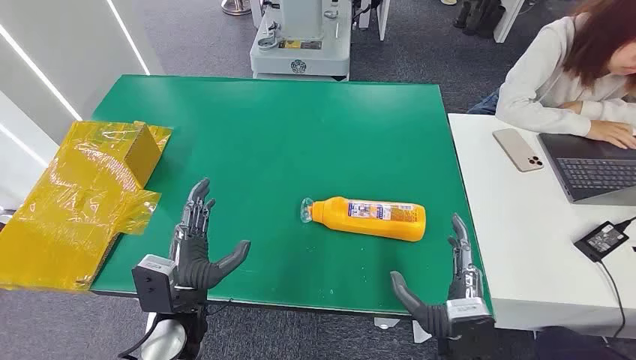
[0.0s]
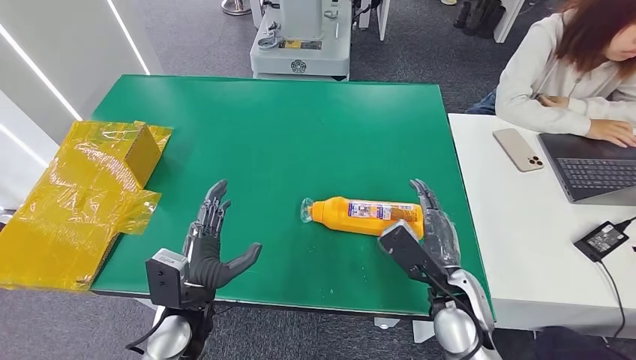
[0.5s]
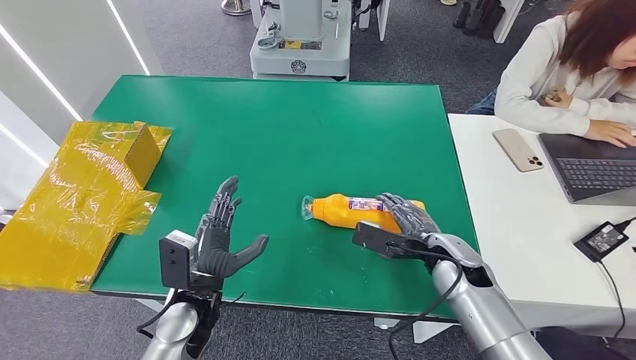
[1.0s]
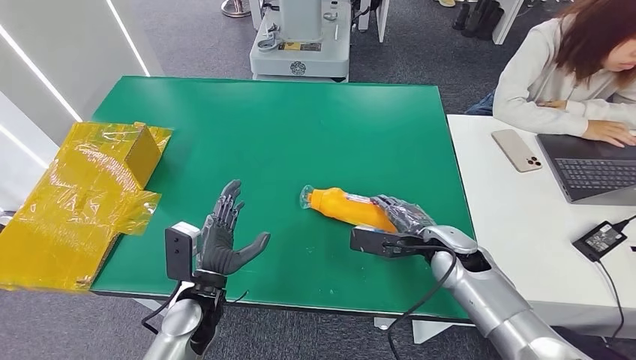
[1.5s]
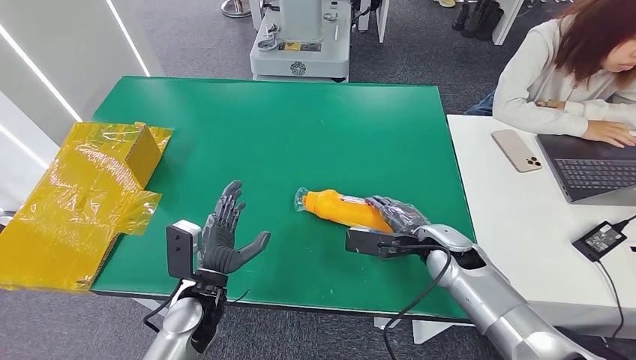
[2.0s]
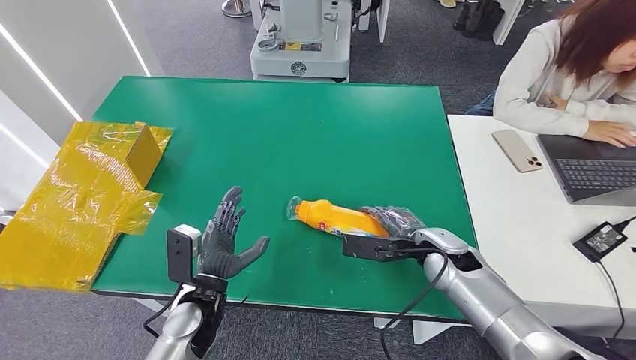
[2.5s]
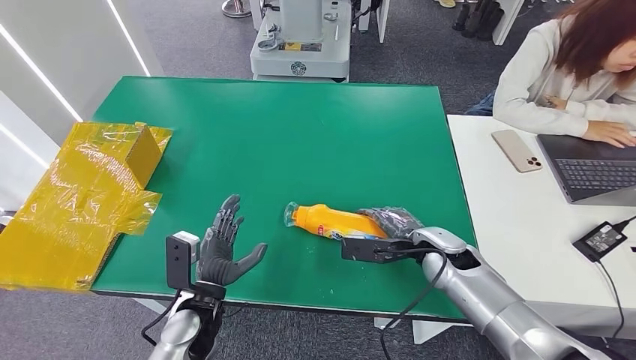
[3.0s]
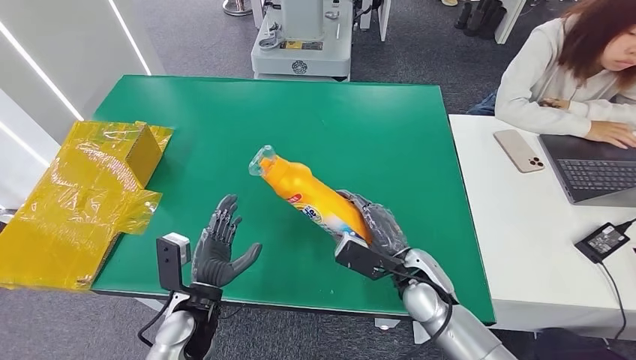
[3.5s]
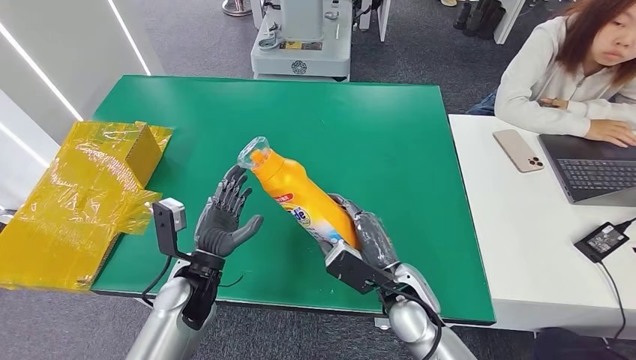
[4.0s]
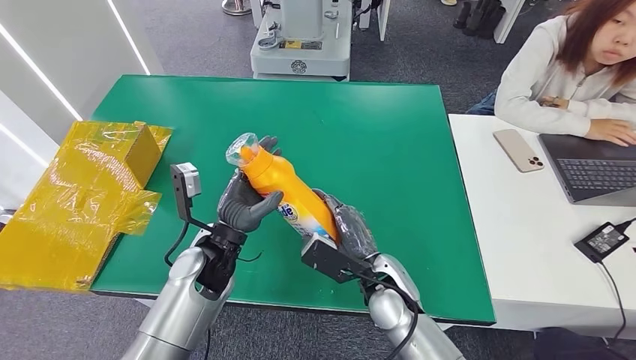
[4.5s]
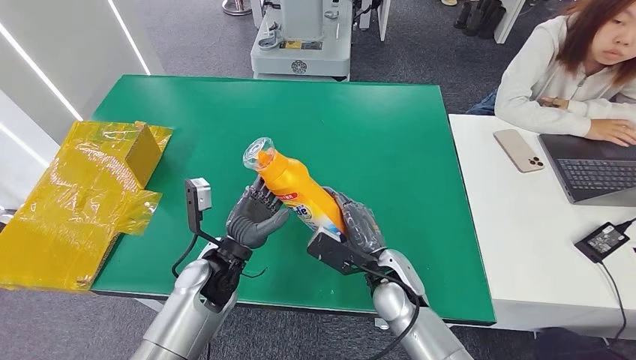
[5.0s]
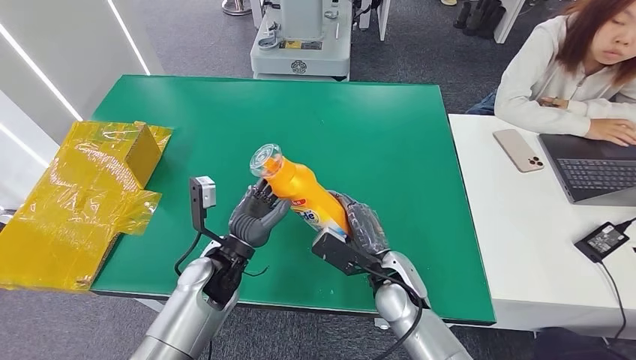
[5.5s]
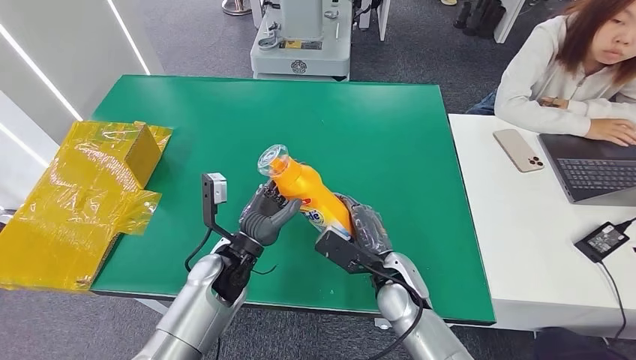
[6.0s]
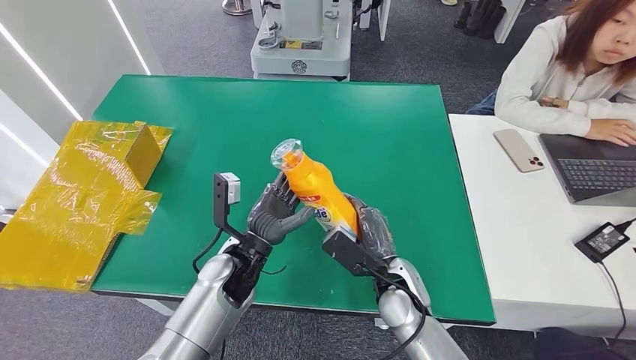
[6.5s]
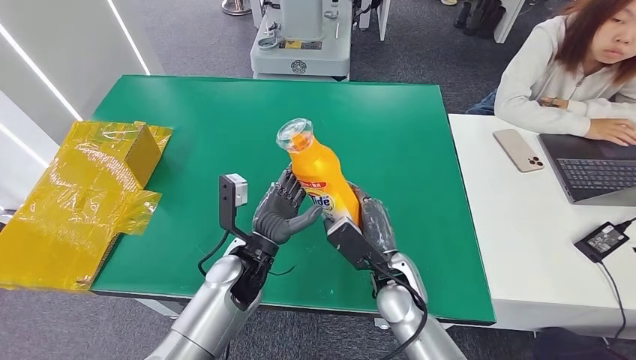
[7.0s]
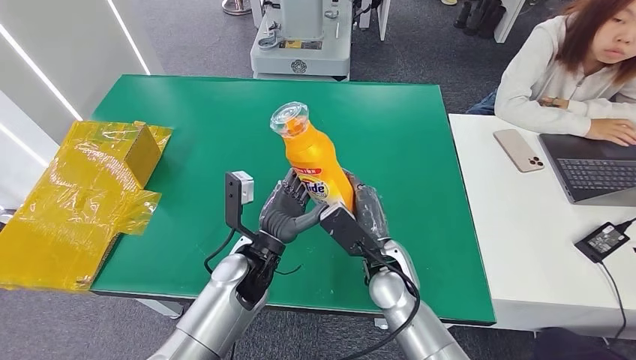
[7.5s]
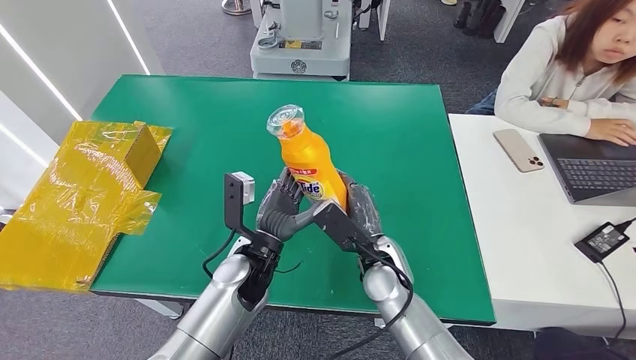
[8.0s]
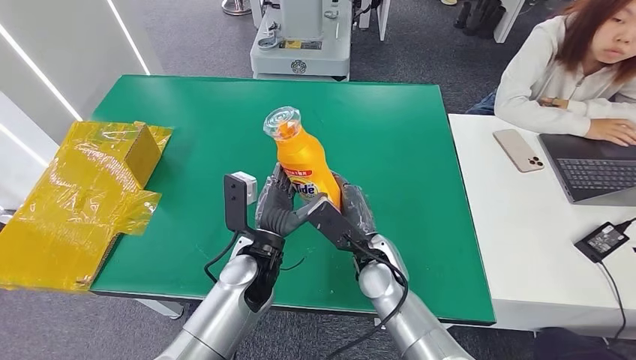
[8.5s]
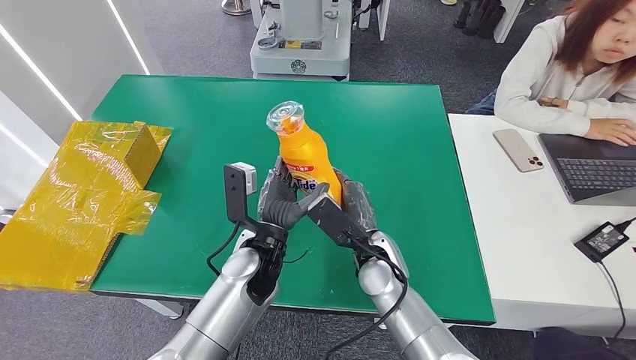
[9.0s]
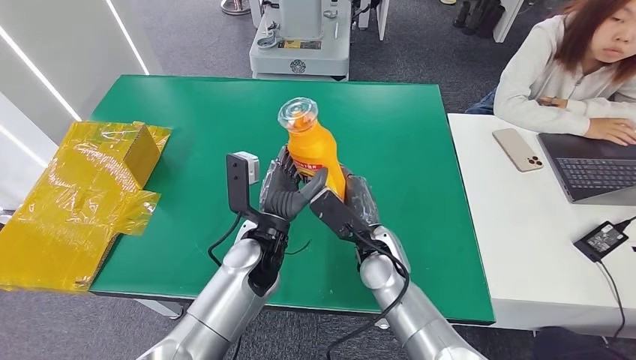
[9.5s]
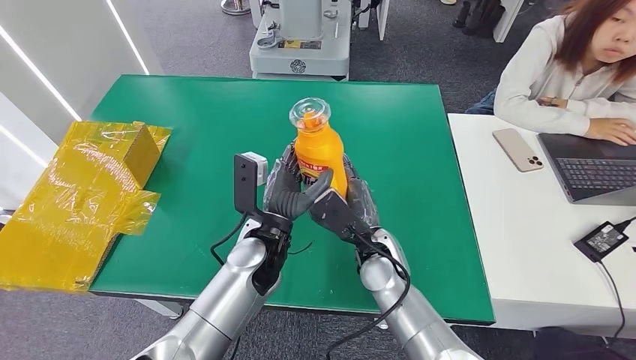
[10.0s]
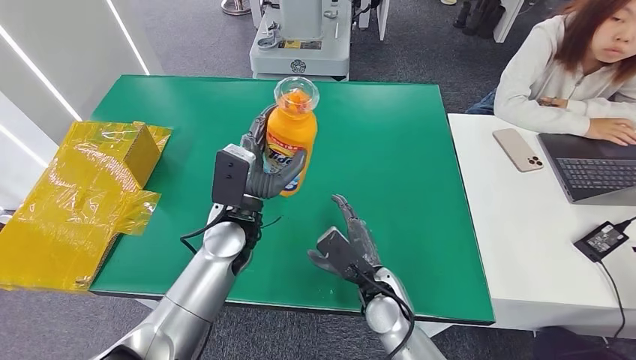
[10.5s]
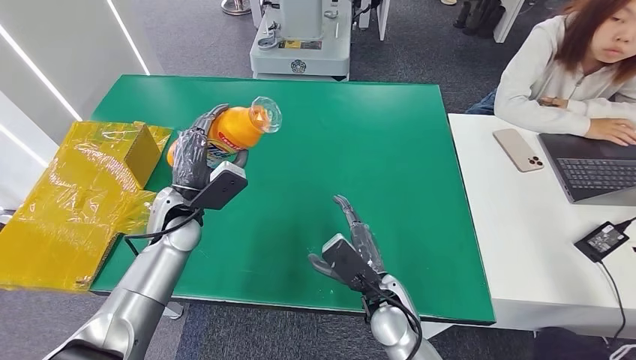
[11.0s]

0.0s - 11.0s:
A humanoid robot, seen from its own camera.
Step, 0.0s - 4.0s: Pick up the bottle from the table.
2.0s - 3.5s: The right hand moves to the left and backward, roughly 10 cm.
3.5s - 5.5s: The left hand is displaced forward by roughly 10 cm, while the right hand is displaced to the left by approximately 5 cm.
5.5s - 7.5s: The left hand heads to the right, covering roughly 5 cm.
7.5s - 9.0s: The hands stay close to where they were, moving slightly.
9.0s - 11.0s: The right hand heads backward, covering about 5 cm. Meanwhile the left hand shifts about 15 cm to the left and forward.

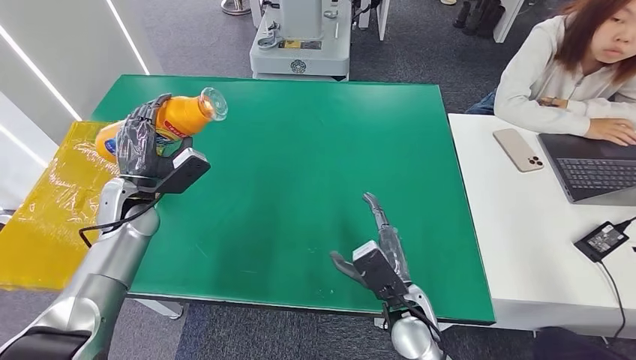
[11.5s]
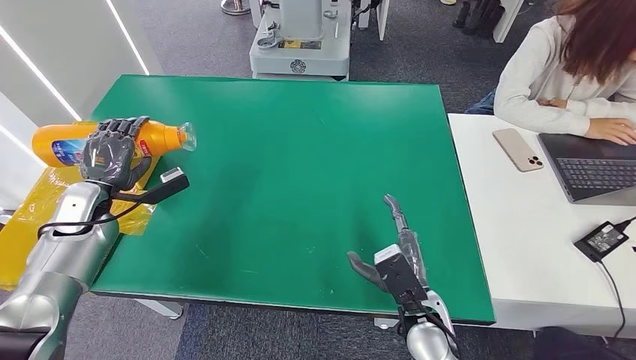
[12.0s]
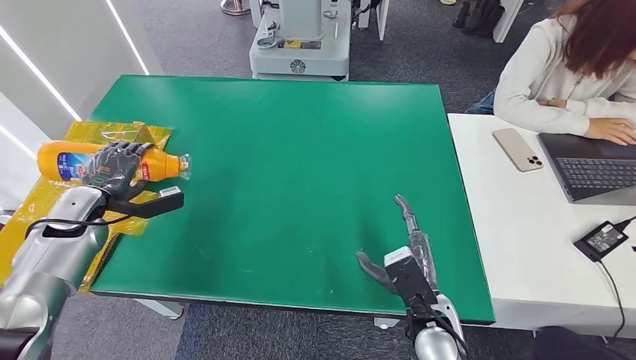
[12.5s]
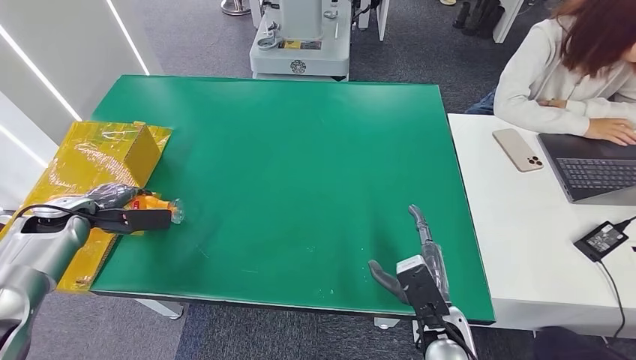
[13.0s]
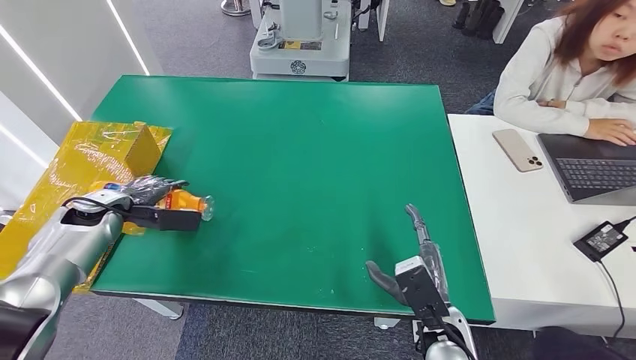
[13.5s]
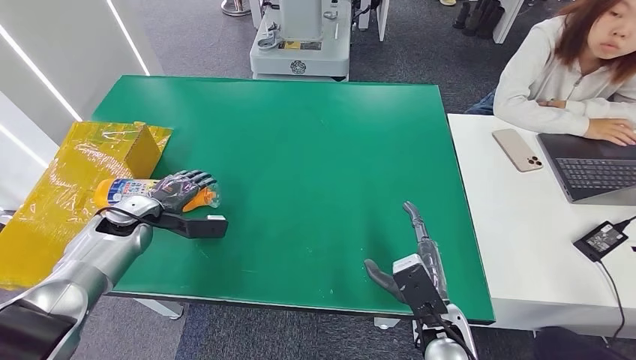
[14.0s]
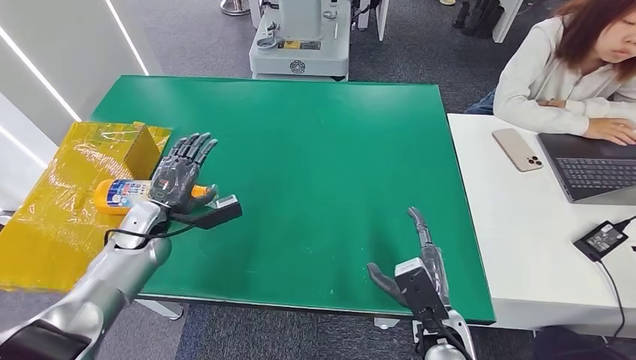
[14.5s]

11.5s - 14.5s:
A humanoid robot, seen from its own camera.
Step, 11.5s - 14.5s: Turn the bottle to the front side.
11.5s - 13.0s: The left hand heads to the left, covering about 15 cm. The right hand changes place by roughly 5 cm.
13.0s - 14.5s: The left hand shifts about 15 cm to the right.
